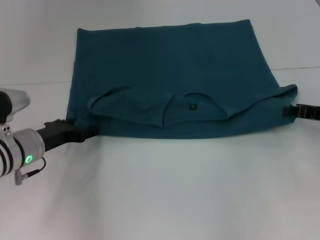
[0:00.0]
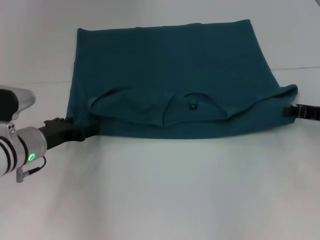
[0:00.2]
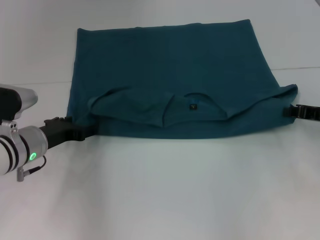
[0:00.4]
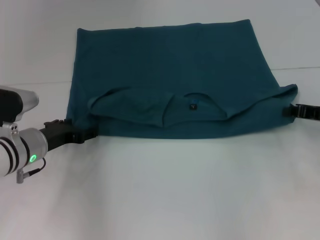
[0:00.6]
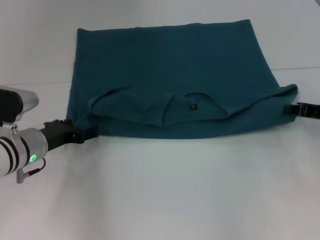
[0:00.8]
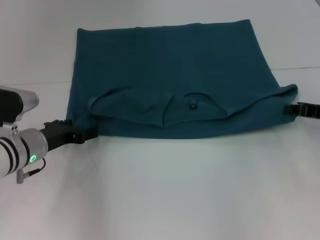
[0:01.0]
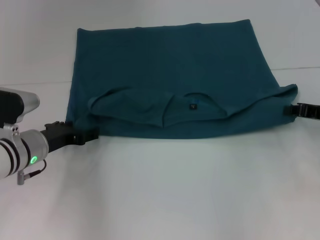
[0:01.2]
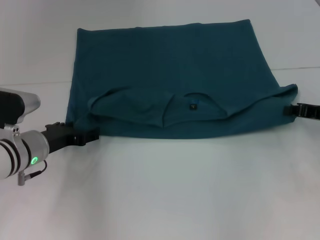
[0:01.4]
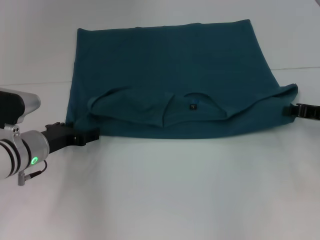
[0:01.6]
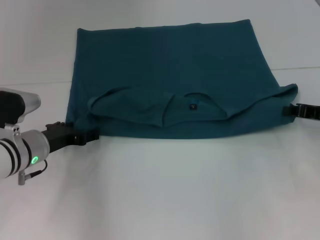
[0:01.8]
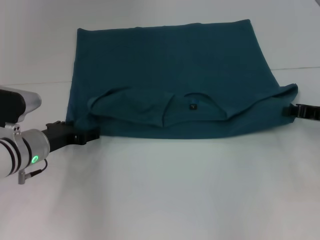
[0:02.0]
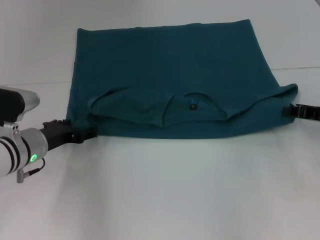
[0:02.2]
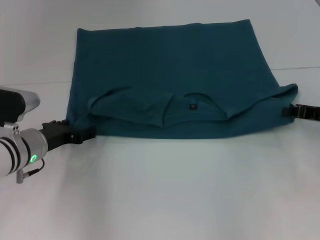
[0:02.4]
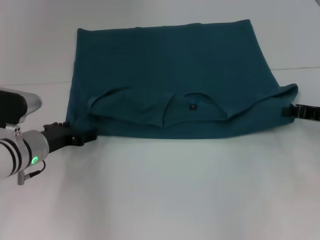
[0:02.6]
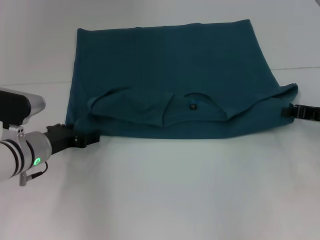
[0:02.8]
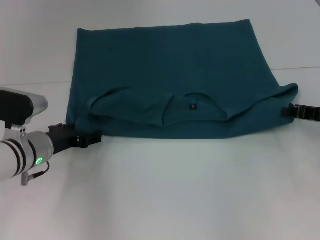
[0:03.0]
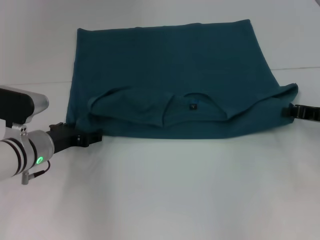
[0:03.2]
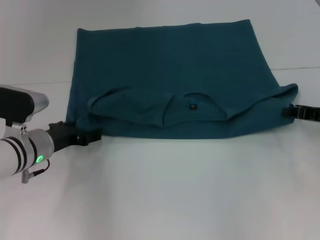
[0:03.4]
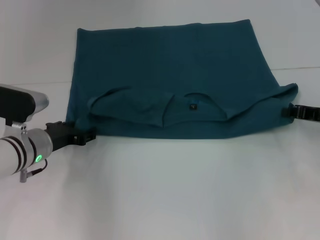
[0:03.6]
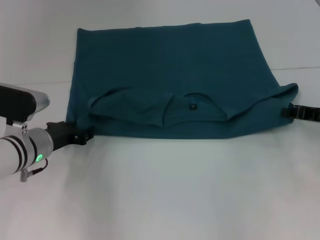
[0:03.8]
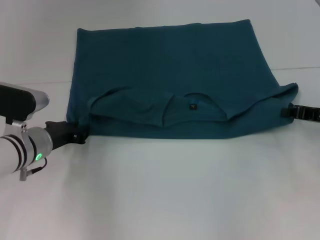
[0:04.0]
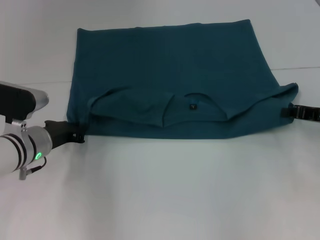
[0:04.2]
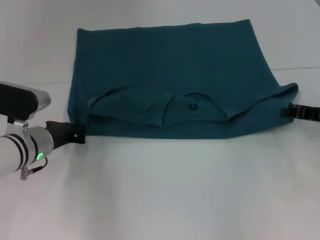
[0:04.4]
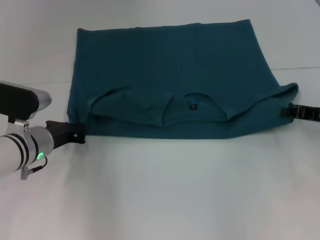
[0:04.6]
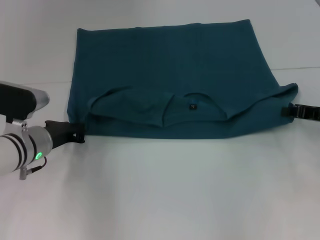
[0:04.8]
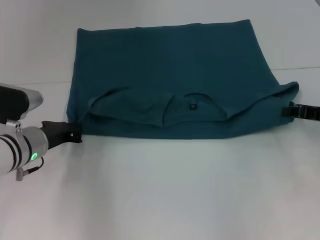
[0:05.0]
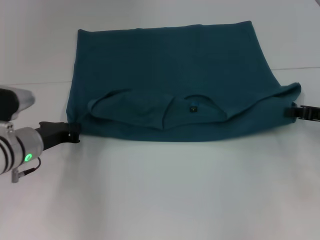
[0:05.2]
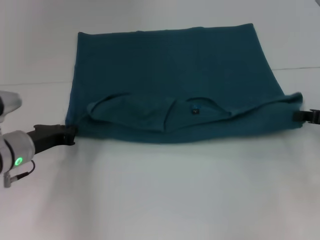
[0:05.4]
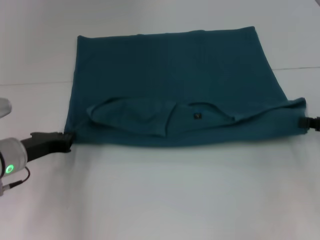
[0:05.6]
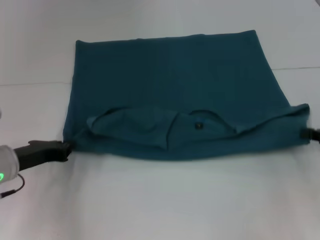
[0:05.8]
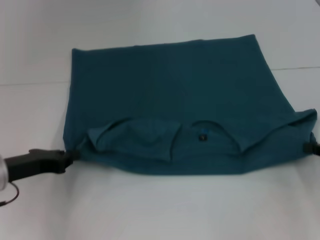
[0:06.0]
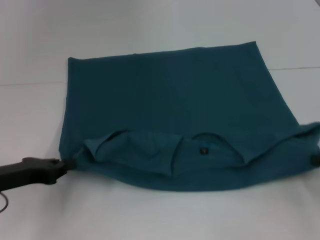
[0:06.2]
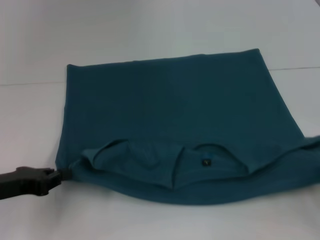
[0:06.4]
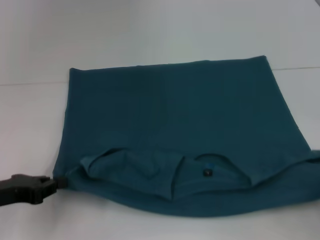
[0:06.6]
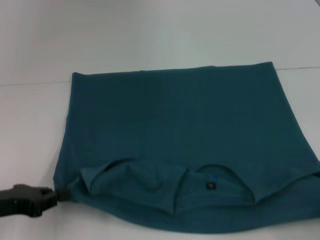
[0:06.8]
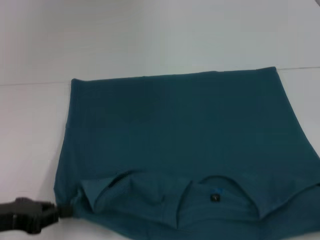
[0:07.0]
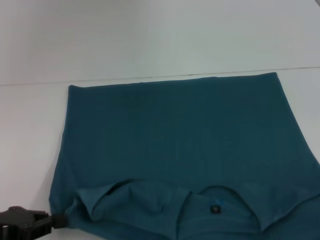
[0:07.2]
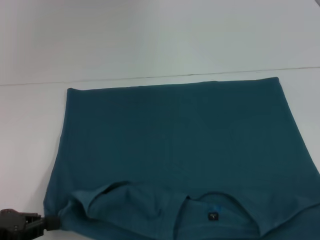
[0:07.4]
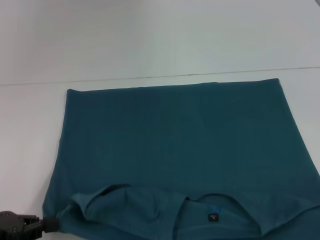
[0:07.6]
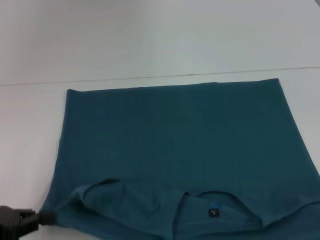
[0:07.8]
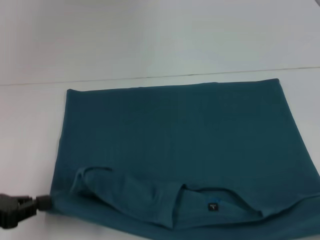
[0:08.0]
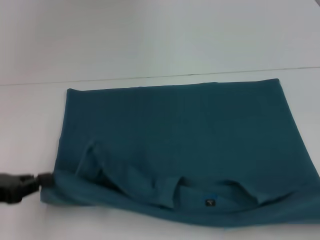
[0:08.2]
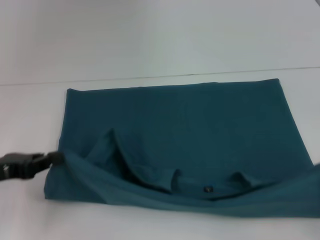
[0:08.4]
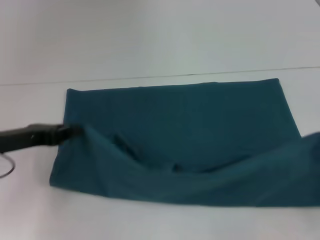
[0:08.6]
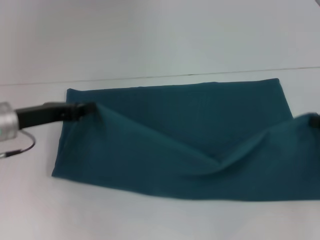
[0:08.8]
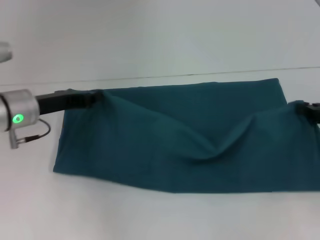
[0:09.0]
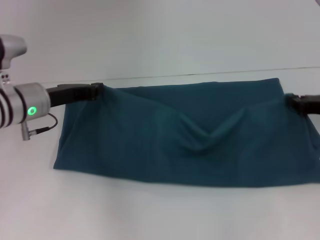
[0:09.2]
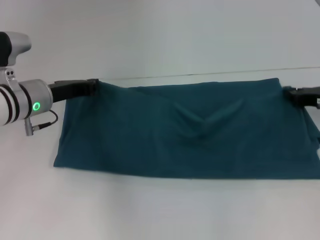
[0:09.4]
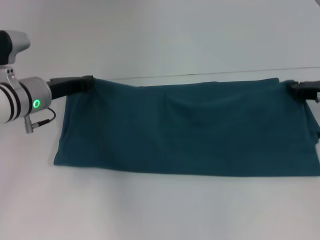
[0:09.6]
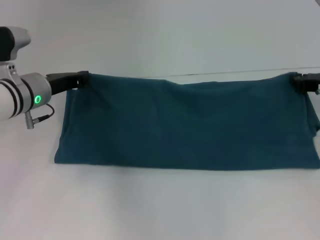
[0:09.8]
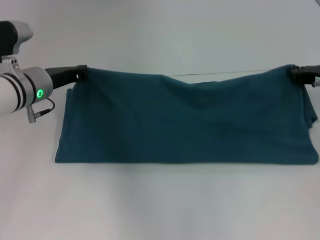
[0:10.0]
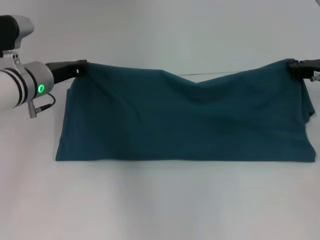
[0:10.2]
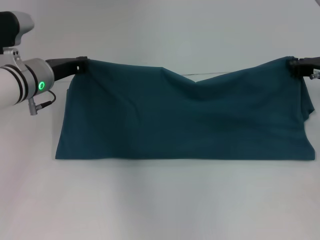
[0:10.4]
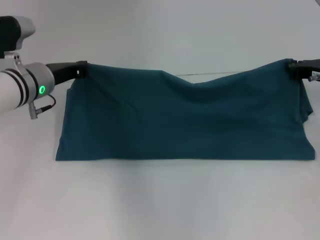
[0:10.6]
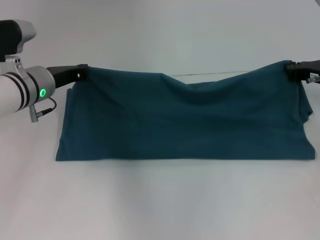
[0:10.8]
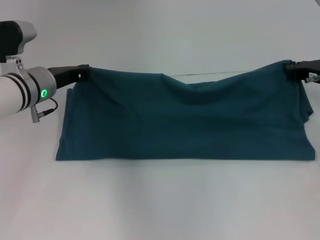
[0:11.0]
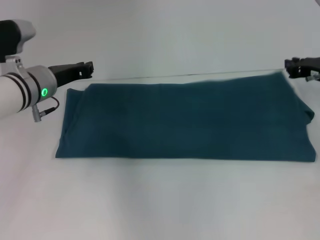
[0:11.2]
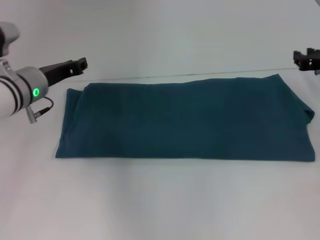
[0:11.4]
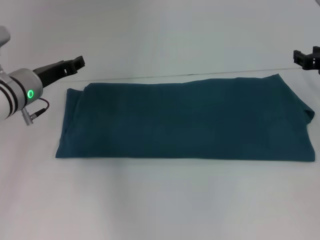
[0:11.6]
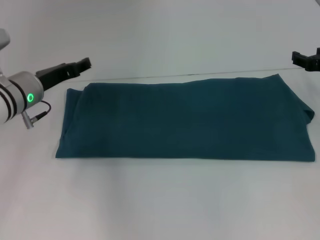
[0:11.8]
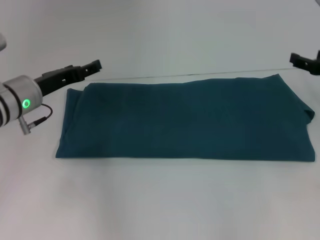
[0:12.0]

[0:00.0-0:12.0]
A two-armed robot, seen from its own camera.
Step, 0:00.0 to 0:07.6: Pull the clothes with your left hand.
Step, 0:00.0 to 0:07.6: Pull the clothes with your right hand.
0:00.0 to 0:01.6: The grippers move only a little.
0:01.6 to 0:03.0: Neither gripper changes place.
0:03.0 to 0:04.4: The left gripper closes up.
0:04.4 to 0:06.0: The right gripper is displaced backward by about 5 cm, while the left gripper moves backward and to the left, about 10 cm.
0:06.0 to 0:07.6: The left gripper moves backward and to the left, approximately 10 cm. Meanwhile the right gripper moves backward, approximately 15 cm.
0:07.6 to 0:09.0: The left gripper heads forward and to the right, covering roughly 20 cm. Meanwhile the right gripper moves forward, roughly 20 cm.
0:09.0 to 0:10.4: The left gripper goes roughly 5 cm forward. Meanwhile the right gripper travels forward by some 10 cm.
0:10.4 to 0:12.0: The left gripper opens up; the right gripper shifts by some 5 cm, and opens its fingers.

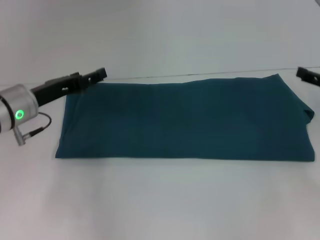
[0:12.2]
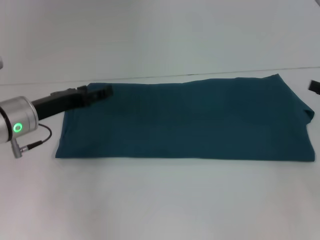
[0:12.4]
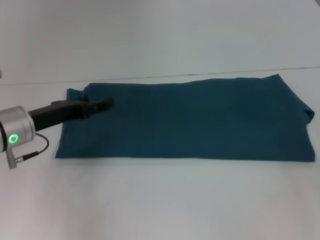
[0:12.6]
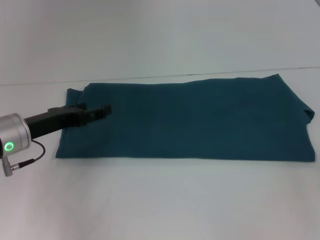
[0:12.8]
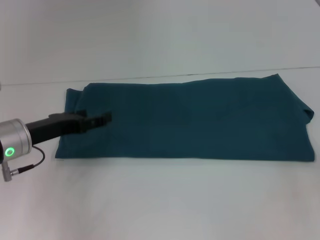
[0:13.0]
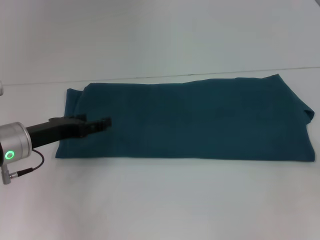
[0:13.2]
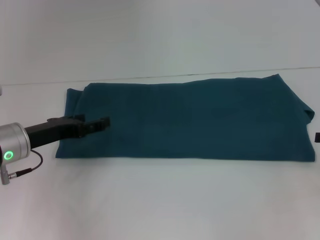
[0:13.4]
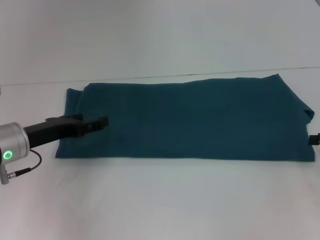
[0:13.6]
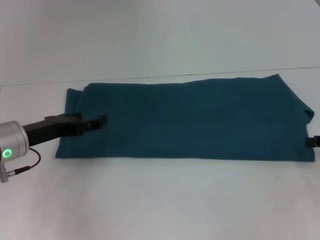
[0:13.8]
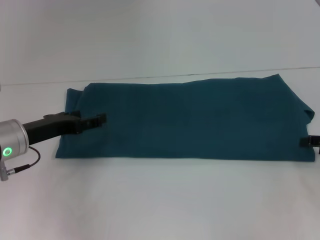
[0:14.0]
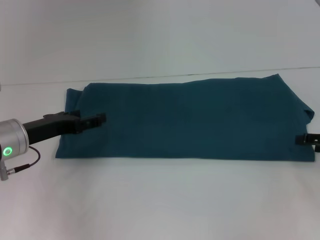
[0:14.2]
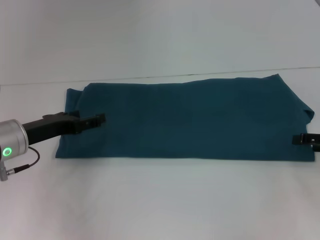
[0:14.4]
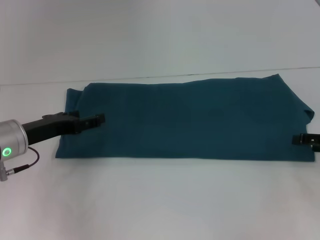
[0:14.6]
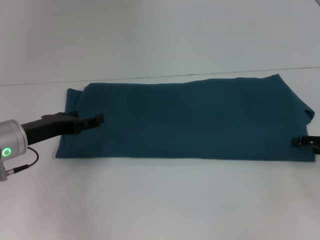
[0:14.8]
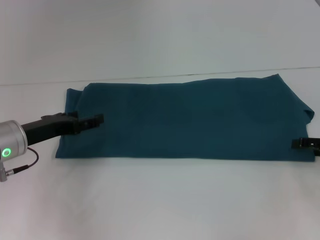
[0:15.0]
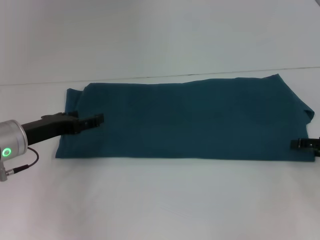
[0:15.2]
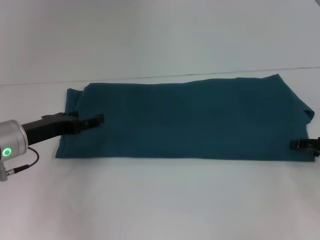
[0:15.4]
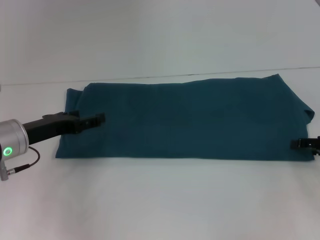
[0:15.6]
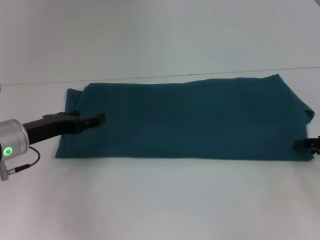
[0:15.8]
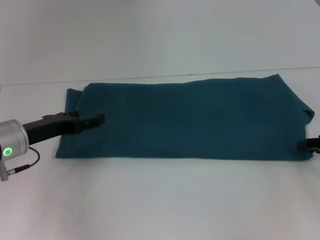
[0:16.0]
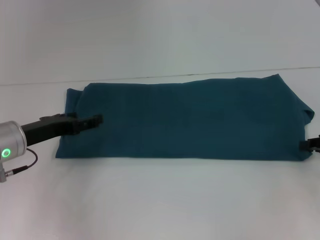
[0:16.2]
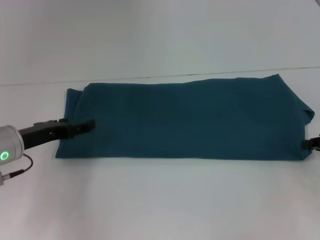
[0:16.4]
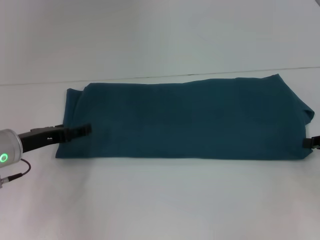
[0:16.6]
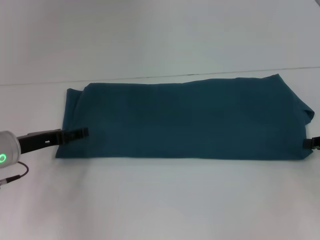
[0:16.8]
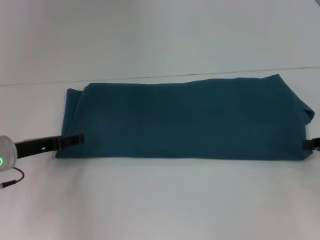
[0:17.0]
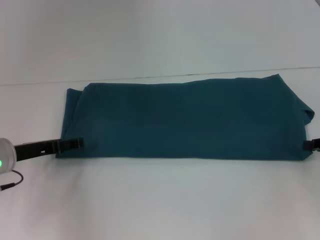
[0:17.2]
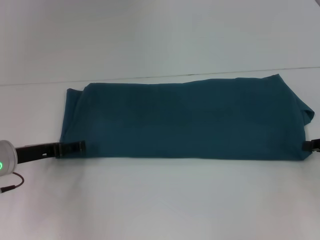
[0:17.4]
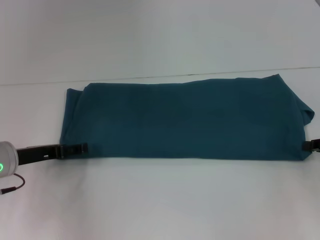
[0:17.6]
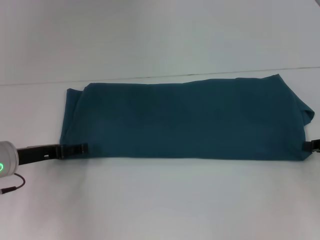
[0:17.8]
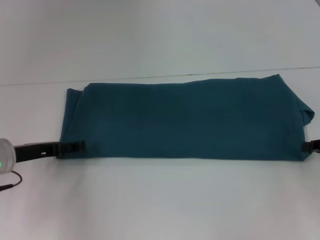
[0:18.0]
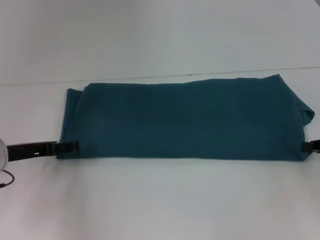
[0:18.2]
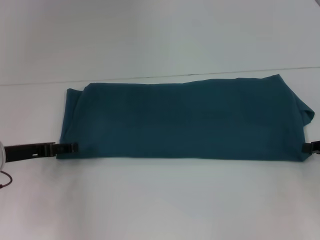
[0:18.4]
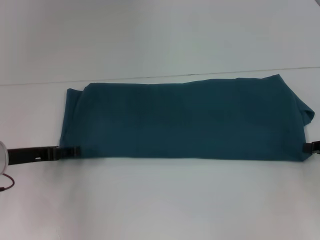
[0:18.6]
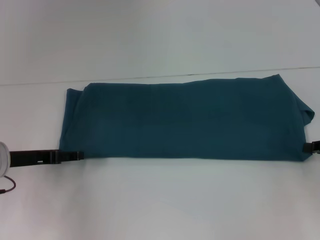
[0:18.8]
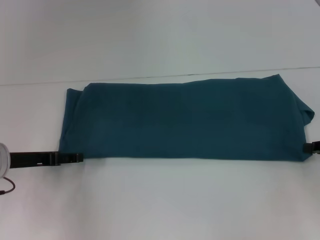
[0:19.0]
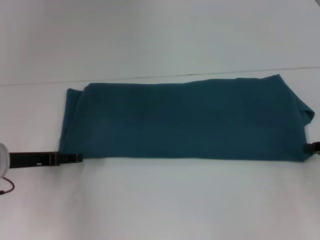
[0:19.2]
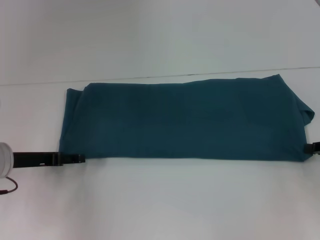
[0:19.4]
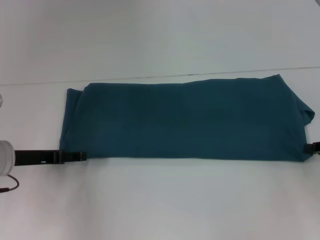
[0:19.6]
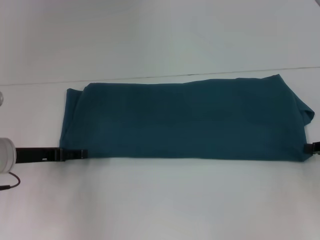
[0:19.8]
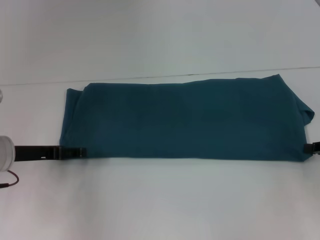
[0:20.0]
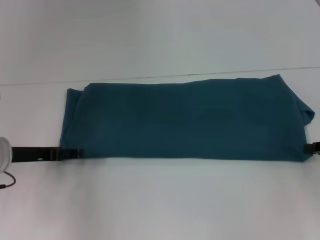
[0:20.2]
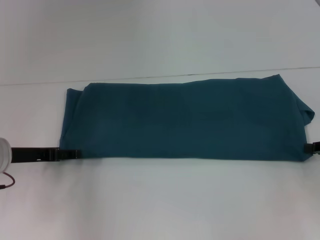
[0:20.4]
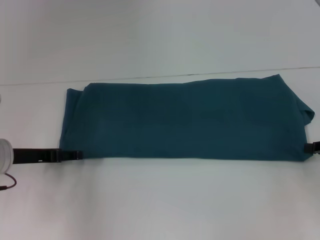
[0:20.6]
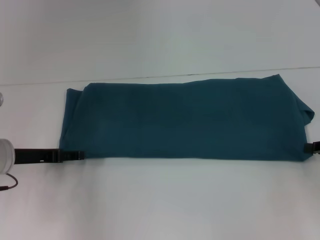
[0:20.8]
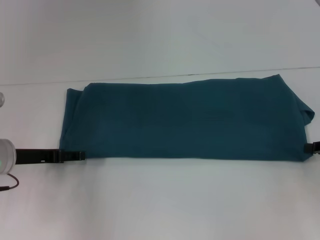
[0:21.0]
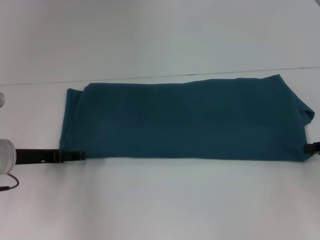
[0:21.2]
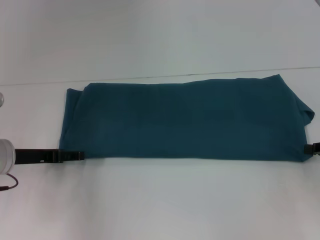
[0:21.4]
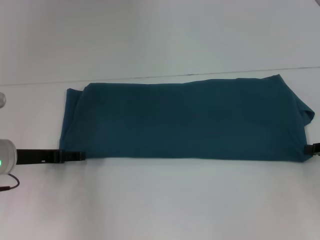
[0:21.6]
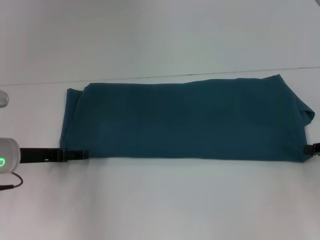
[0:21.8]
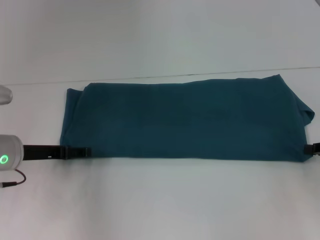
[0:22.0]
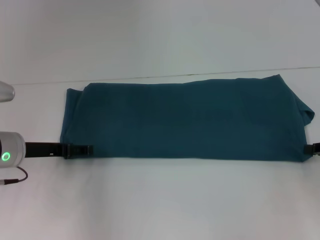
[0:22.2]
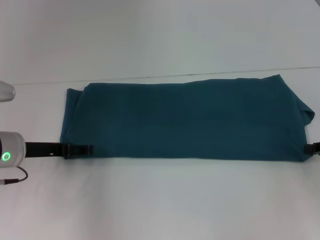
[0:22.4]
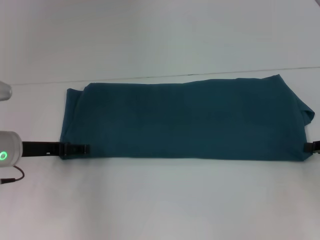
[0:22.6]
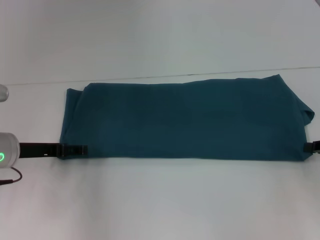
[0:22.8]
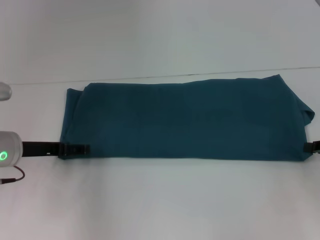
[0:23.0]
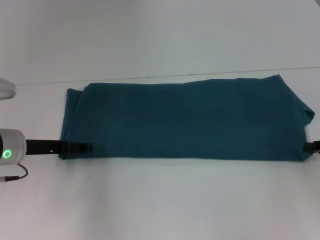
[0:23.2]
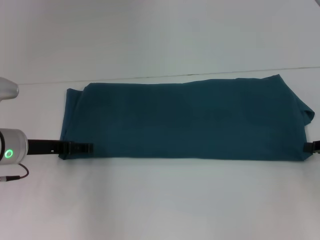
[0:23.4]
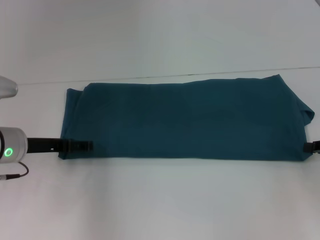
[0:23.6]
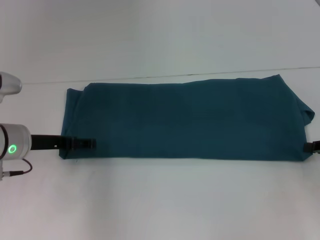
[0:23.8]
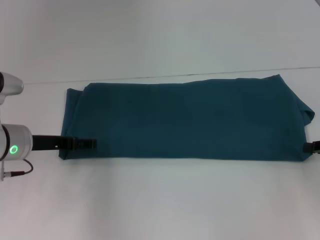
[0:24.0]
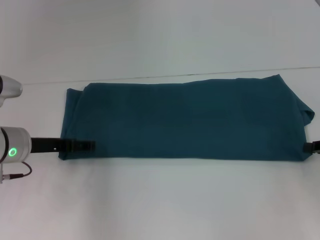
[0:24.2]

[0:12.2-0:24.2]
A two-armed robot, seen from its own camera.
0:13.8 to 0:15.2: The grippers stay close to where they were, moving slightly.
0:16.6 to 0:19.8: There are only small adjustments of the grippers.
0:19.8 to 0:21.2: The two grippers keep their place.
0:21.2 to 0:24.2: The grippers make only small movements.
